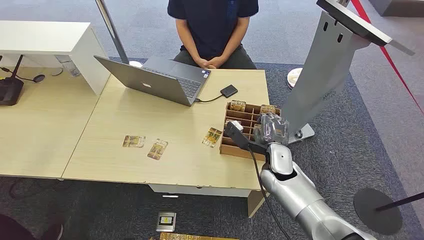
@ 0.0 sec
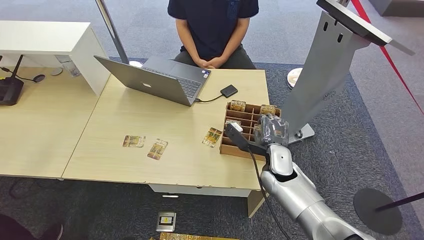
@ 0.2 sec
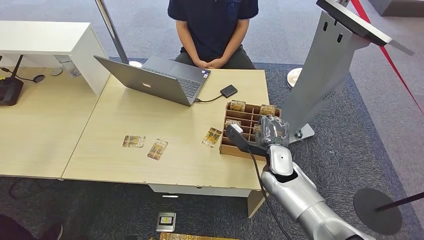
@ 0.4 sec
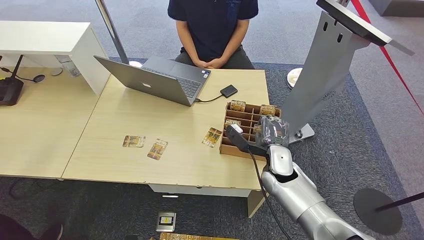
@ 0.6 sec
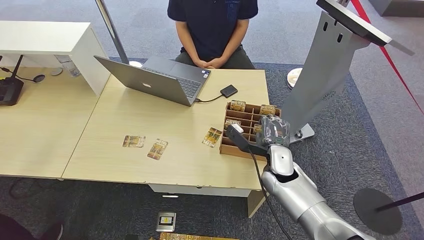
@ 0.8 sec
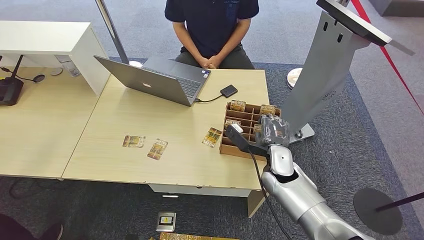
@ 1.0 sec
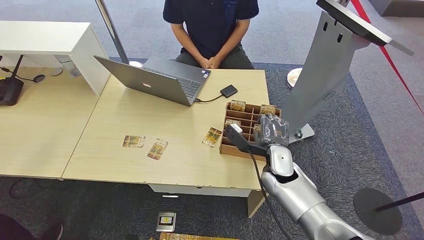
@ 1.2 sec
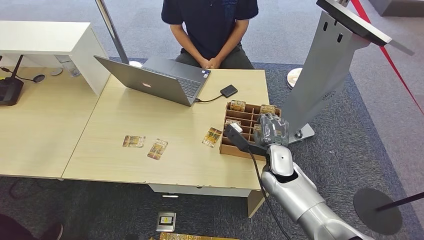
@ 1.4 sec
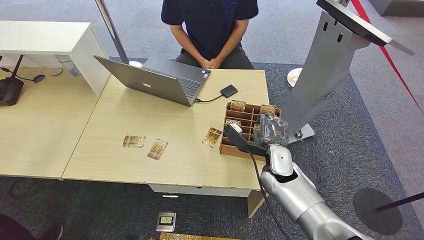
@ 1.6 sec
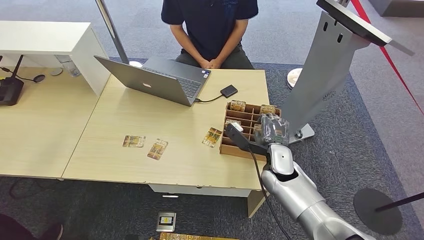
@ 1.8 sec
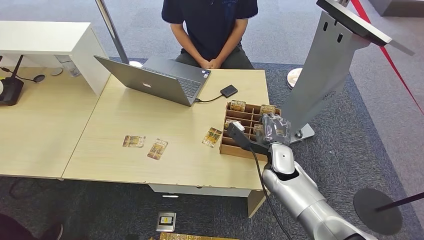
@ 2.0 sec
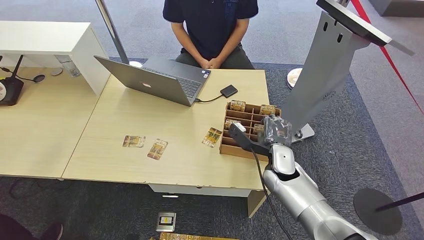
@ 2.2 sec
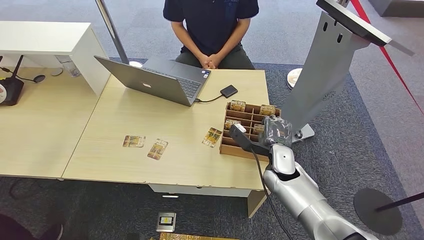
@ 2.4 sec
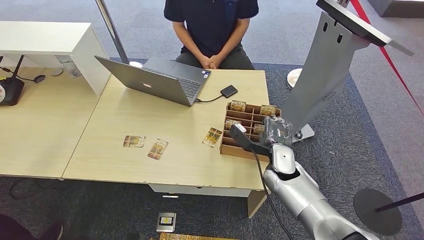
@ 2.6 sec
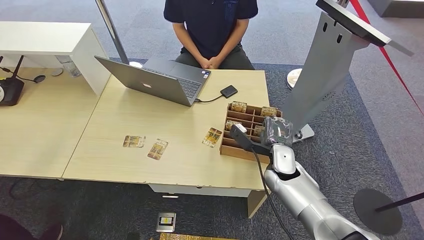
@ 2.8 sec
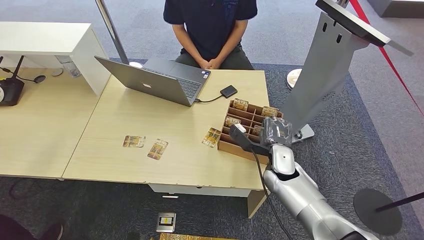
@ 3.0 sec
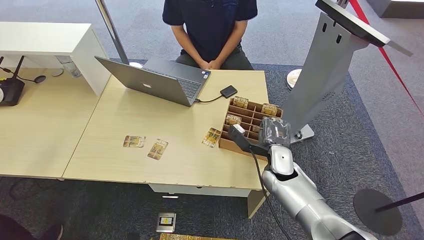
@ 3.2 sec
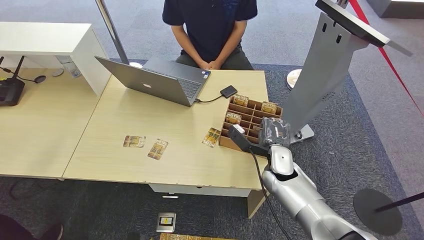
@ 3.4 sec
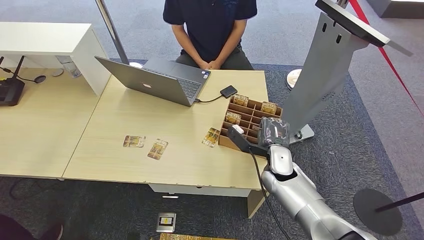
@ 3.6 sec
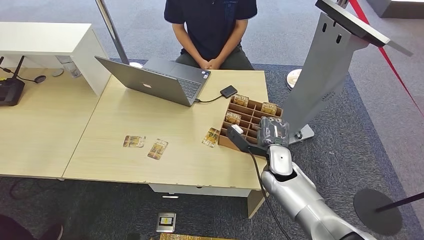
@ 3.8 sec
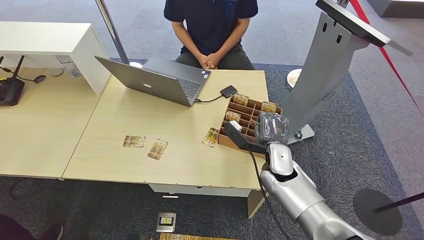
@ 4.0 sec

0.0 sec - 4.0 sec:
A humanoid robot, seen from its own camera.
Task of the whole recording: Pick up the card and hand it over to the target person.
Step, 0.0 sec - 4.0 sec: Pick up the key card from the card box.
1.4 sec - 2.6 sec: There are only small adjustments of the hands.
2.6 sec - 4.0 sec: The right hand shifts some 10 cm upward.
